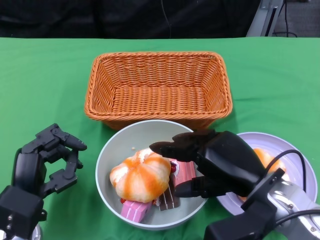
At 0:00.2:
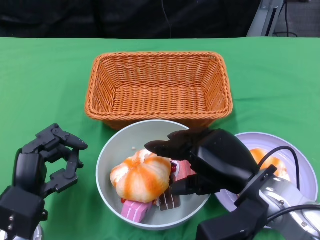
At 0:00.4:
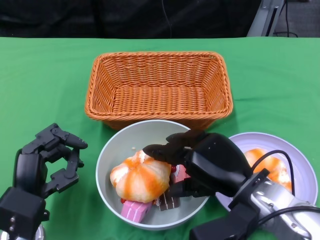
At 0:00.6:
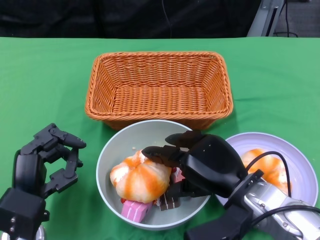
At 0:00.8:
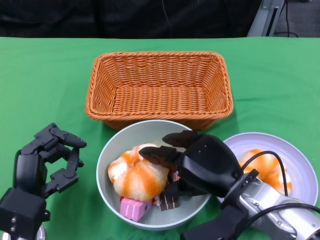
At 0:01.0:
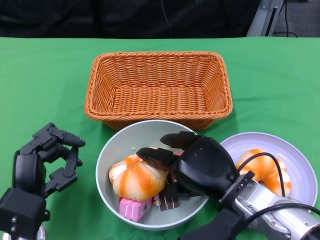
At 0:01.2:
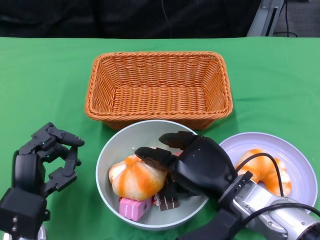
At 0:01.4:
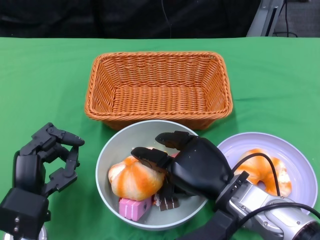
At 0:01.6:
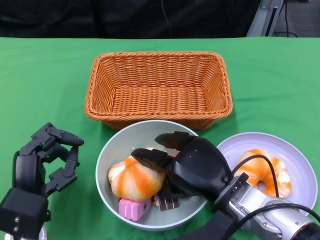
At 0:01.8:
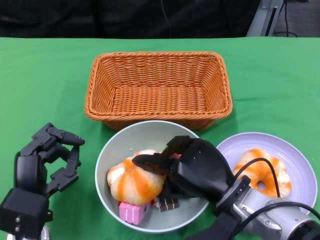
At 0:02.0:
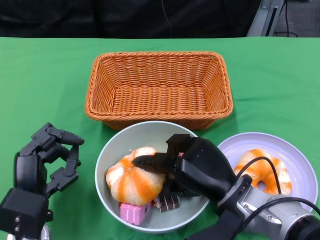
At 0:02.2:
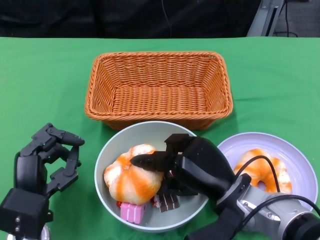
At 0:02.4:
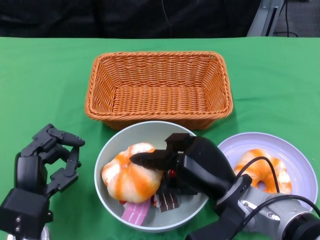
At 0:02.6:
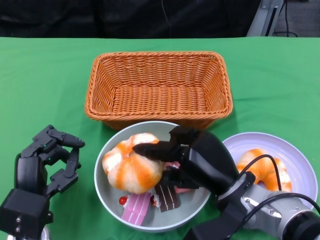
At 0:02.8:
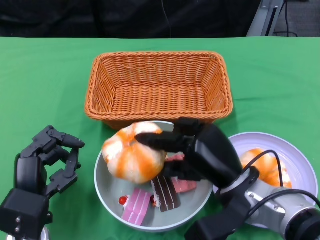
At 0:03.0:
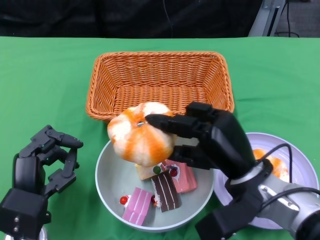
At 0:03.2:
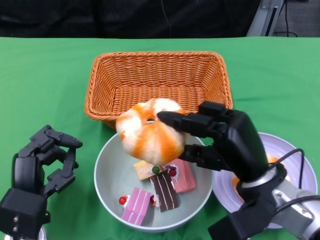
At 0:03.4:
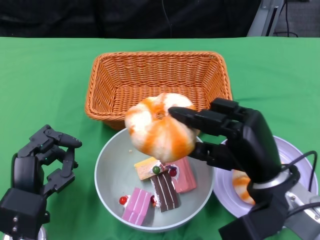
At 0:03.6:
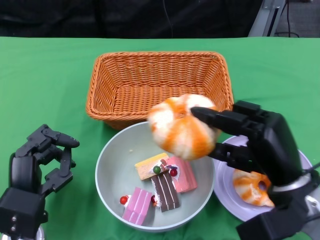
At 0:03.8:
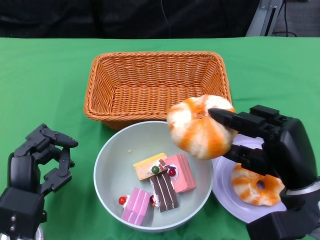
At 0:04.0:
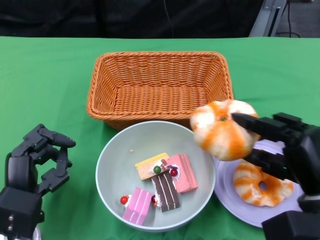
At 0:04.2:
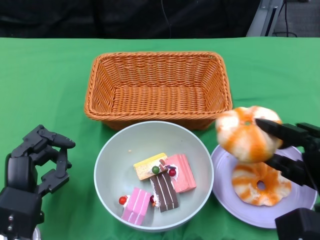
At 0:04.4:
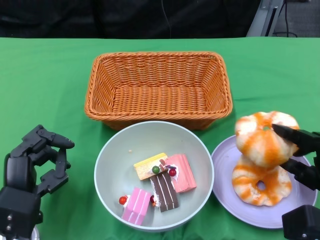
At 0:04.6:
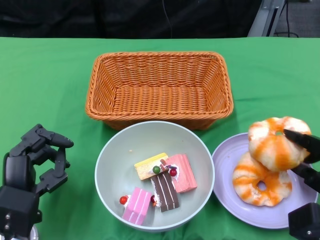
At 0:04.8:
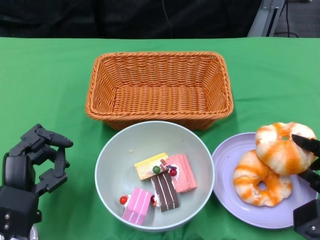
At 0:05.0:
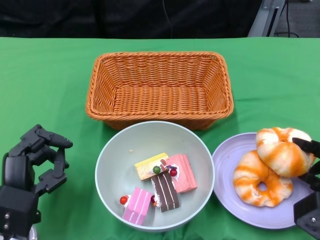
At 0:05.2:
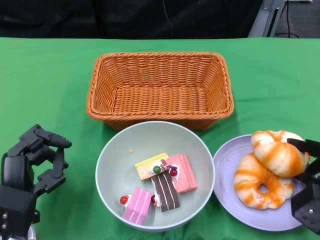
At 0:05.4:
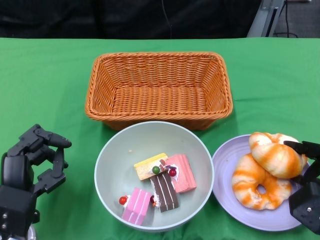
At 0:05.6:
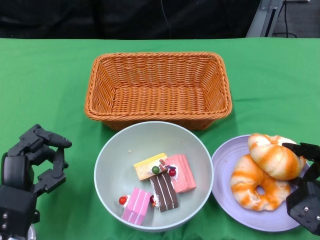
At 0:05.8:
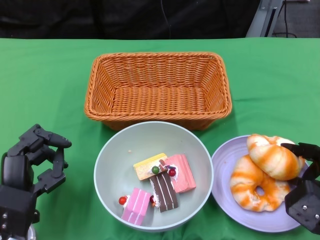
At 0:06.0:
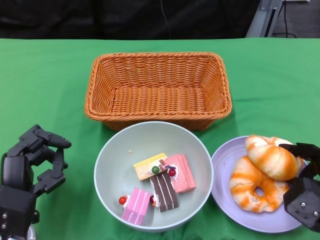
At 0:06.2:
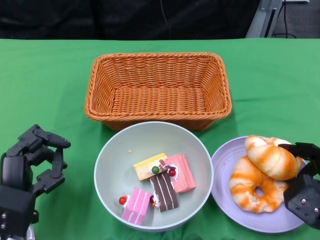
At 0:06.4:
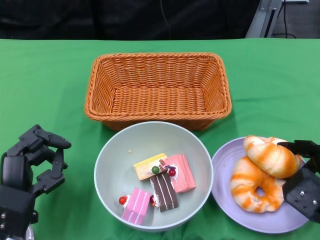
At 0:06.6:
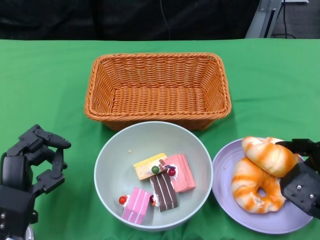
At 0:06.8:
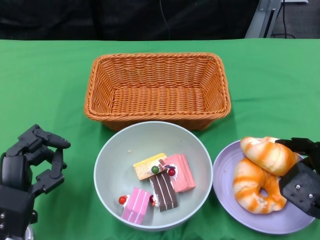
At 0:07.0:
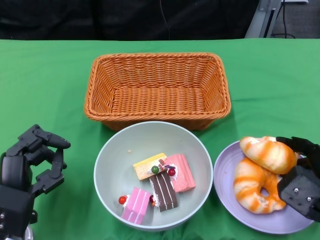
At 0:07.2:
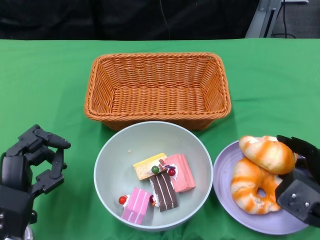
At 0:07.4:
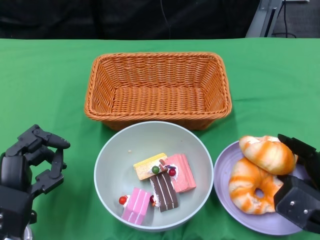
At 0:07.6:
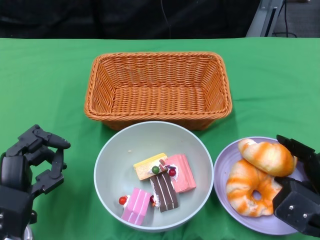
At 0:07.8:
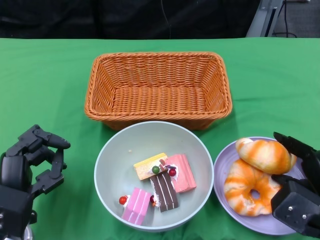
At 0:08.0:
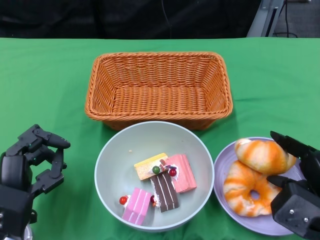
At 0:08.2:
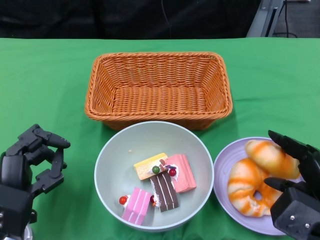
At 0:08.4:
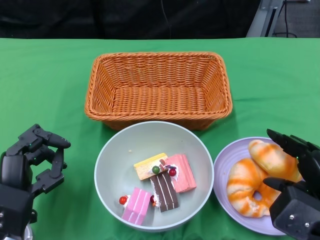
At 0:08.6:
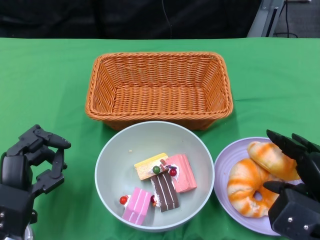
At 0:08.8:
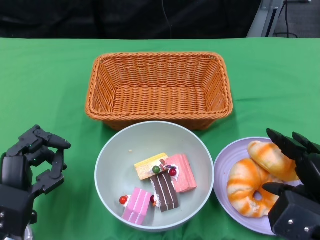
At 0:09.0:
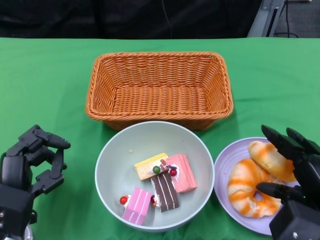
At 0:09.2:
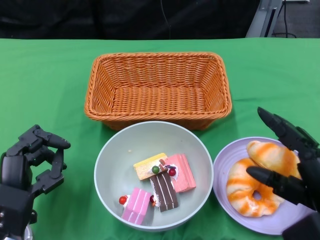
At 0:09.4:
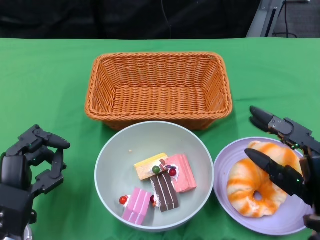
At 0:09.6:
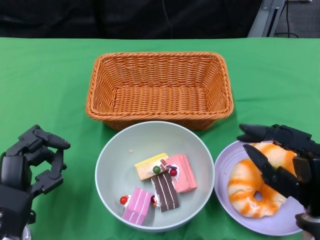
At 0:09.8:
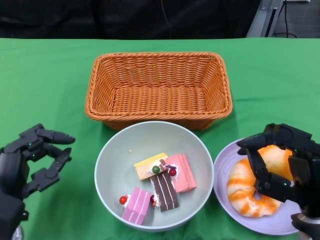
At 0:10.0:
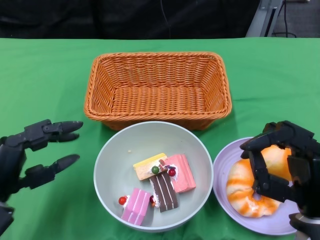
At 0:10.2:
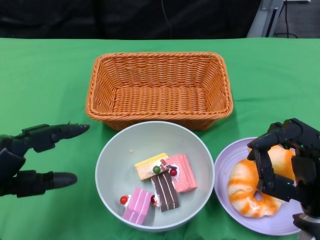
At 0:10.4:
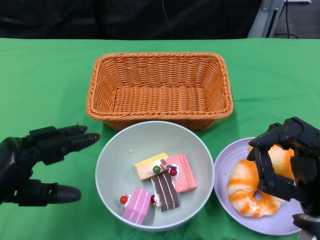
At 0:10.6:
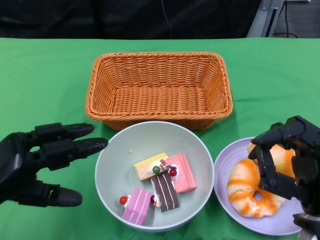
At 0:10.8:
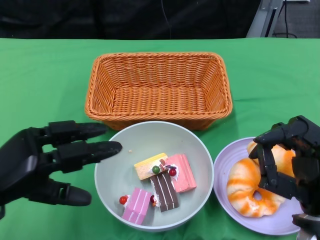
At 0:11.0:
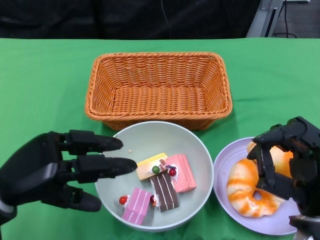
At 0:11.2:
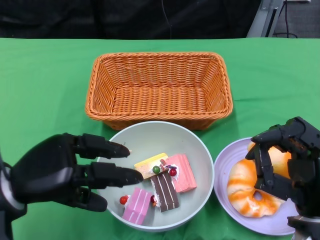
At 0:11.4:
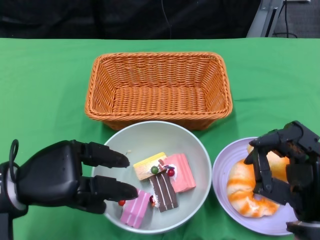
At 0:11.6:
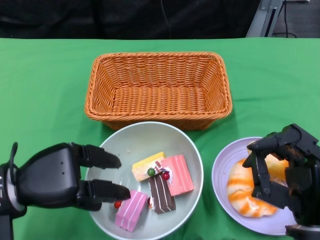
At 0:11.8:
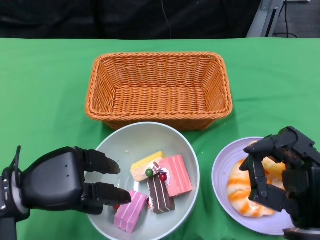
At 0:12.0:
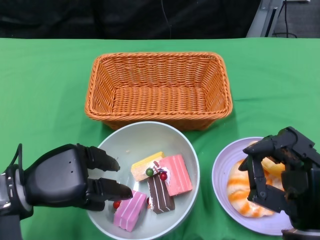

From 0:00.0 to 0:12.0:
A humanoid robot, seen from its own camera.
Step, from 0:00.0 to 0:08.8: Pick up the bread with the right gripper and place it on the plate.
From 0:00.0 to 0:01.6: The right hand ends up some 5 cm from where it was.
From 0:03.0 to 0:04.4: The right hand heads to the right, covering roughly 15 cm.
From 0:06.0 to 0:07.6: The hands move only a little.
From 0:07.6 to 0:09.0: The right hand changes place by about 5 cm.
From 0:09.0 to 0:10.4: The left hand shifts some 10 cm upward and to the left.
From 0:10.4 to 0:12.0: The left hand moves roughly 5 cm.

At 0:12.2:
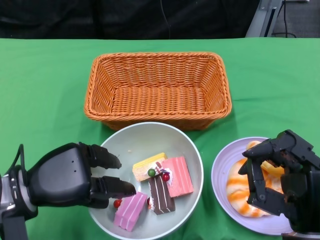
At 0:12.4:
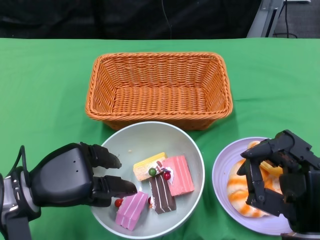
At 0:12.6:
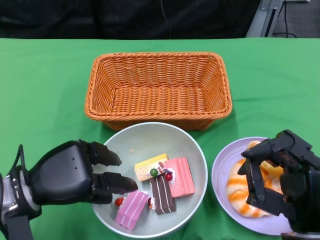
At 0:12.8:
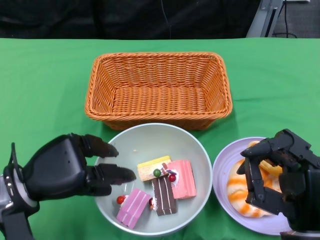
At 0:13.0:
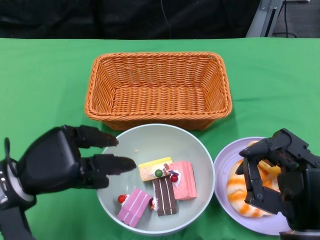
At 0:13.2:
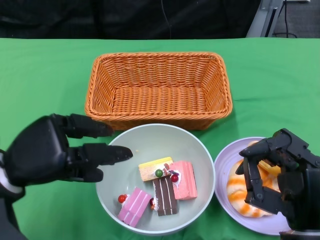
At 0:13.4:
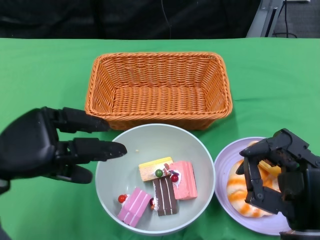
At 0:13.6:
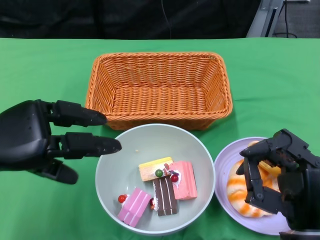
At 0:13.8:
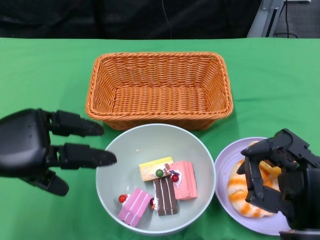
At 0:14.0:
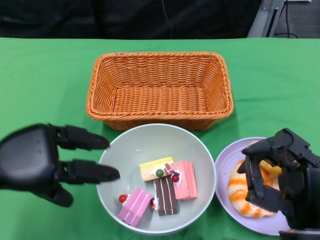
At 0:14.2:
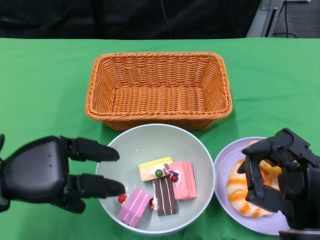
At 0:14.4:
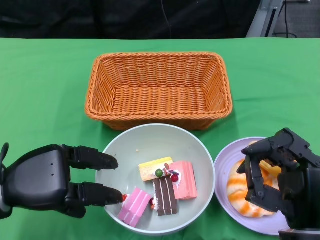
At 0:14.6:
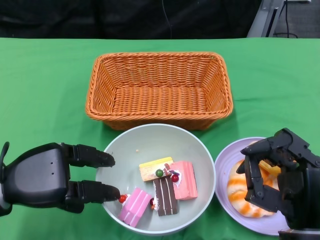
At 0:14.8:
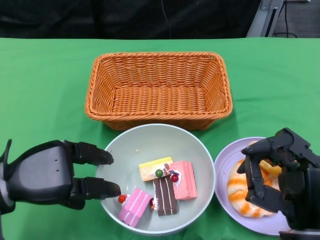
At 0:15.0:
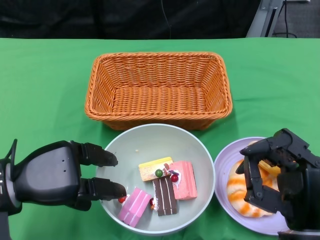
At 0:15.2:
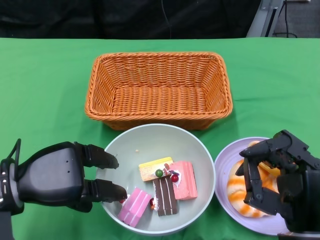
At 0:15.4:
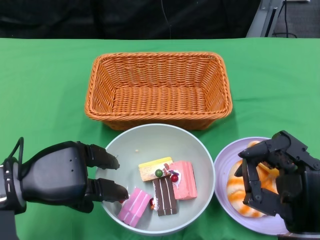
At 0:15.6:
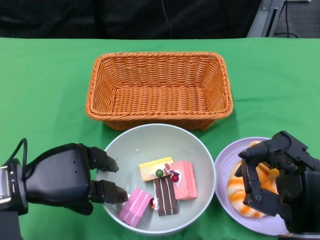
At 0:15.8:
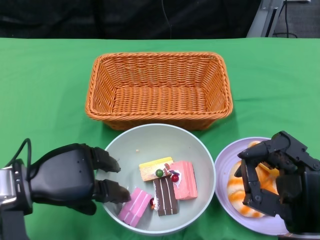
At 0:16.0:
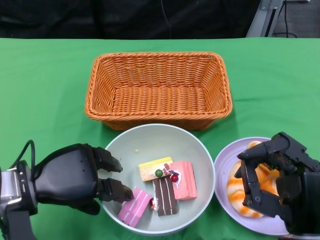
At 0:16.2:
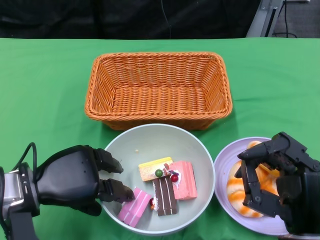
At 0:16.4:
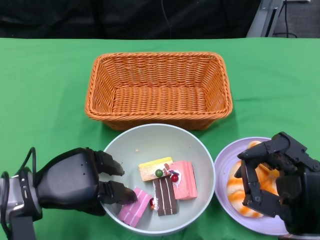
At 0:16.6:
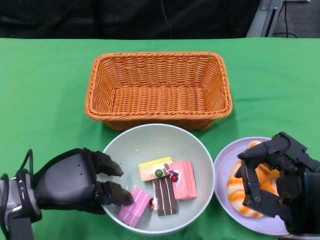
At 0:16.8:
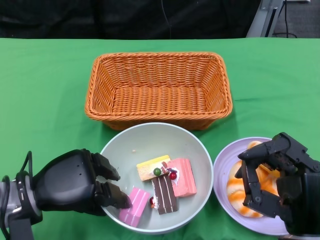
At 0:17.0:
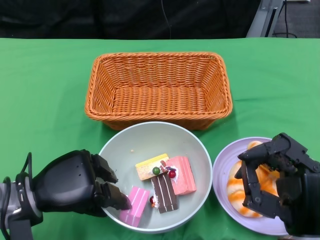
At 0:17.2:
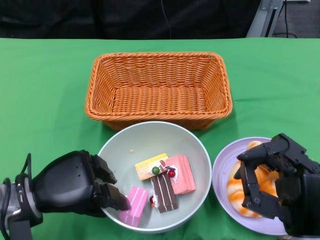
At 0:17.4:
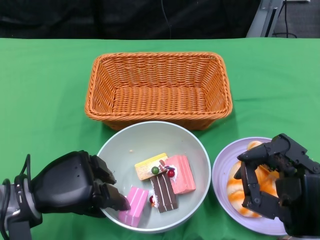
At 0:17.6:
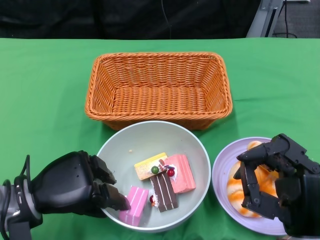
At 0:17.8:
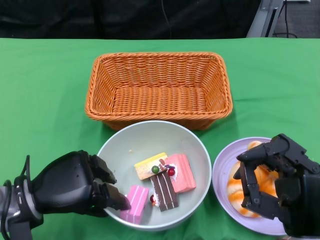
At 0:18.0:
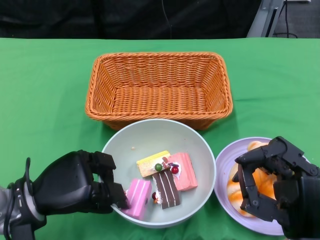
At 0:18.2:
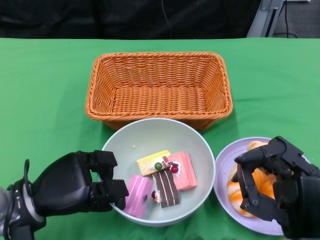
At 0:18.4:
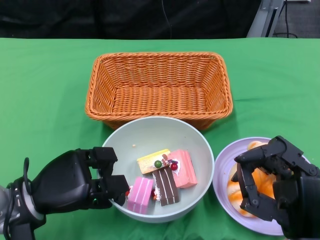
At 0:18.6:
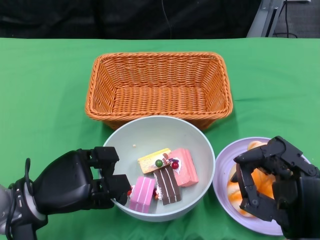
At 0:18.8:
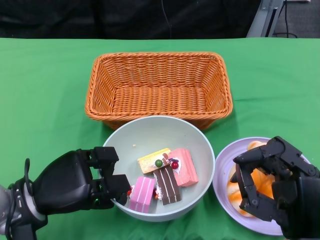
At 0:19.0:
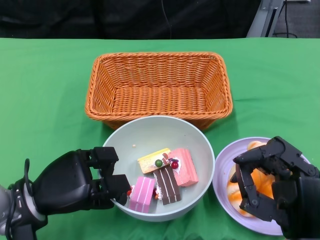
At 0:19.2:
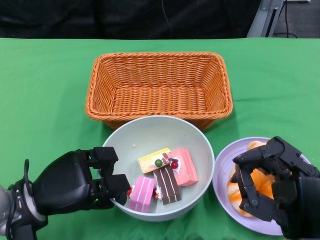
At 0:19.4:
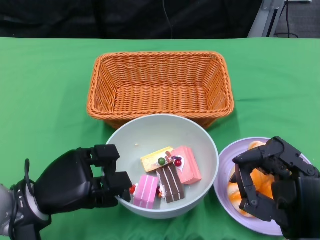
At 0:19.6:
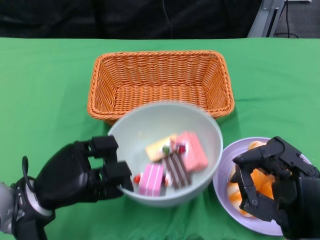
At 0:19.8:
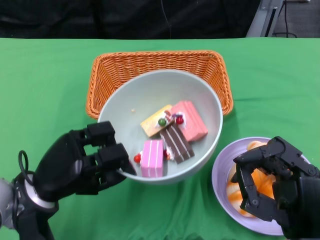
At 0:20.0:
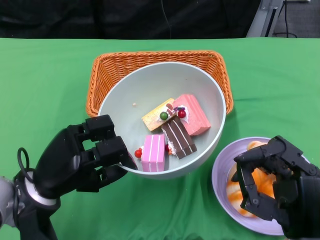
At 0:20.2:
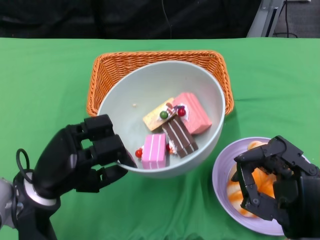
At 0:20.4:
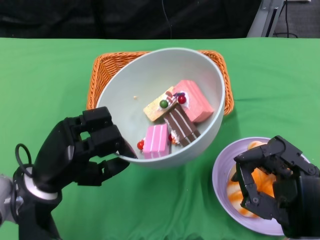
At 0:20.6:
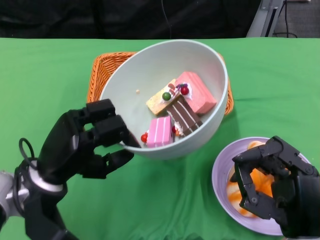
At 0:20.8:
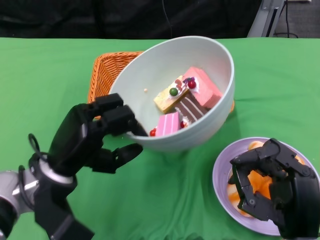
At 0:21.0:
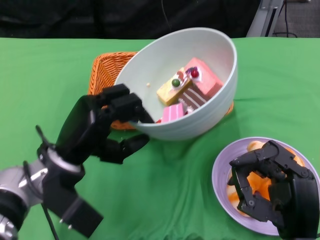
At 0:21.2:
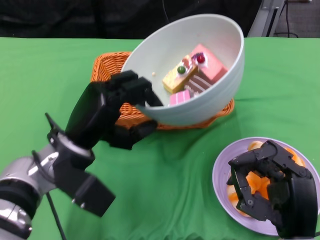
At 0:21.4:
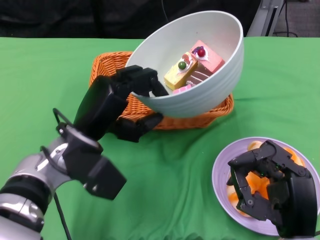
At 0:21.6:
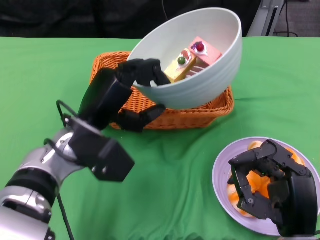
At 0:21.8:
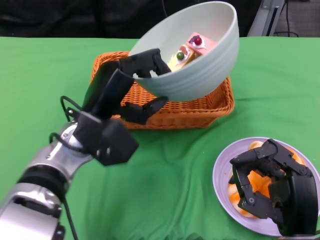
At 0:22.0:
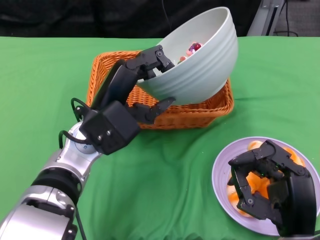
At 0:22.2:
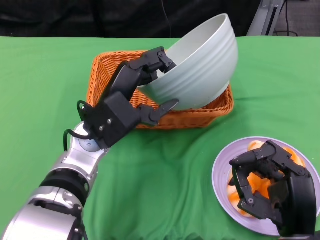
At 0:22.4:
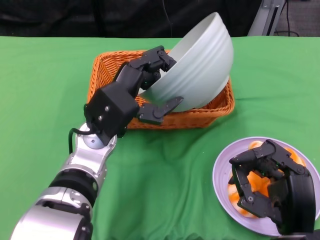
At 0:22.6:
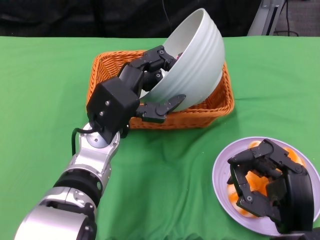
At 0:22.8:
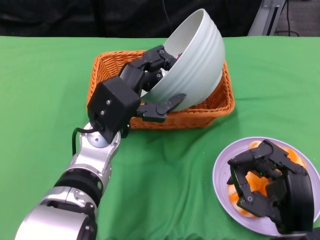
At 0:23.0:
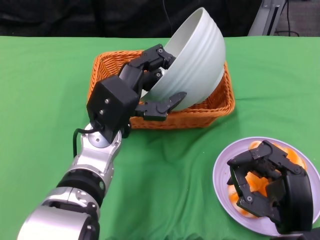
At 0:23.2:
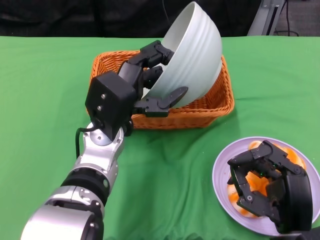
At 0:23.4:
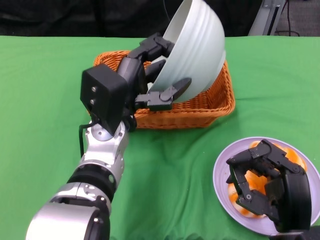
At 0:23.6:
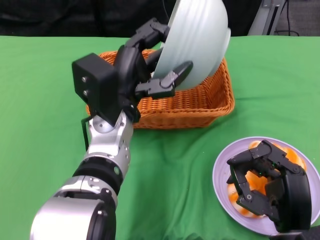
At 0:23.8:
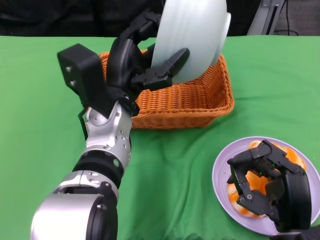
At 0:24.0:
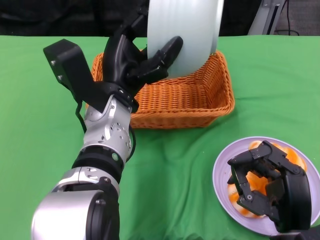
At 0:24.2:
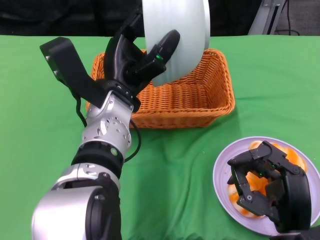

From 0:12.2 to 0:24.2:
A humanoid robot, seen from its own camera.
Step, from 0:12.2 to 0:18.4: Grasp the bowl with the left gripper.
From 0:12.2 to 0:13.8: The left hand goes some 5 cm upward.
From 0:13.8 to 0:15.2: The left hand travels downward by approximately 5 cm.
From 0:15.2 to 0:18.2: The hands make only small movements.
From 0:19.8 to 0:21.2: The left hand moves upward and to the right, approximately 10 cm.
From 0:21.2 to 0:22.6: The left hand shifts approximately 5 cm to the right.
